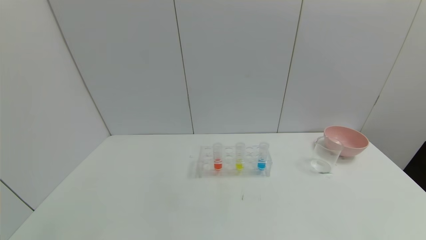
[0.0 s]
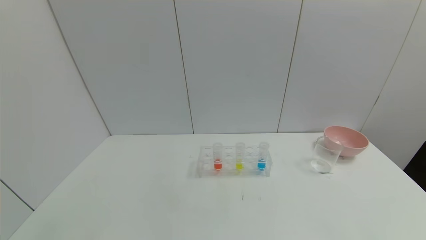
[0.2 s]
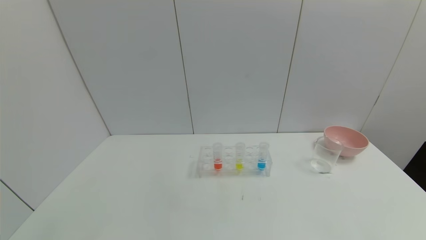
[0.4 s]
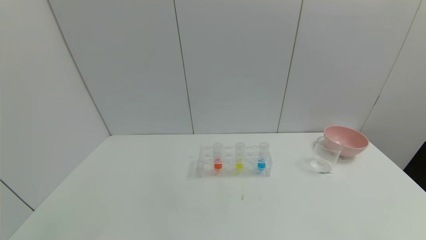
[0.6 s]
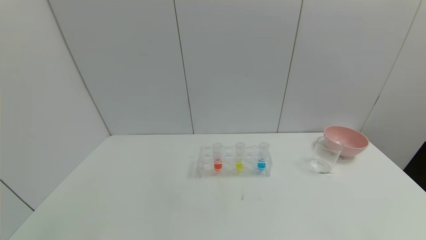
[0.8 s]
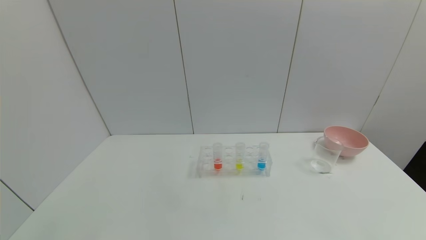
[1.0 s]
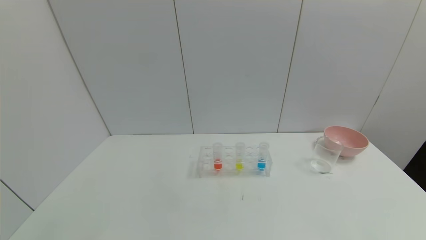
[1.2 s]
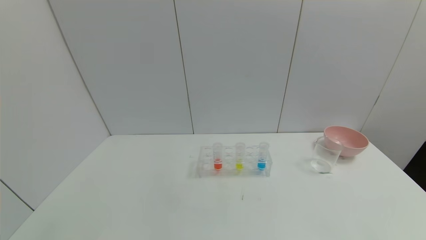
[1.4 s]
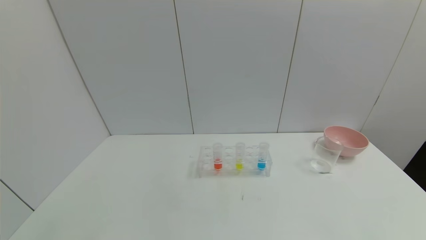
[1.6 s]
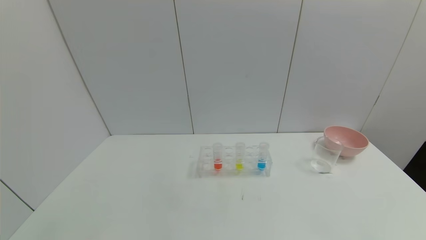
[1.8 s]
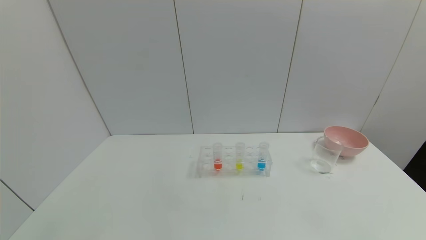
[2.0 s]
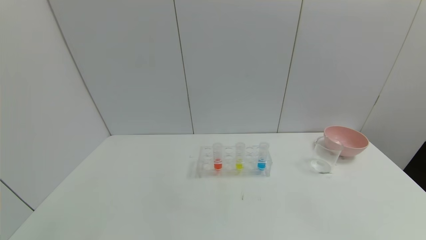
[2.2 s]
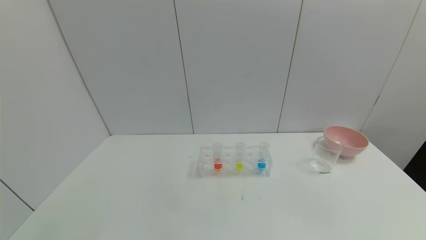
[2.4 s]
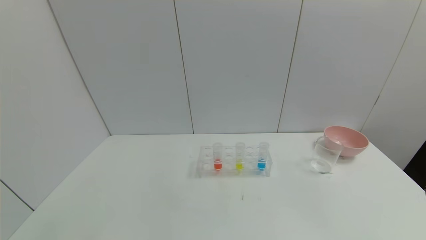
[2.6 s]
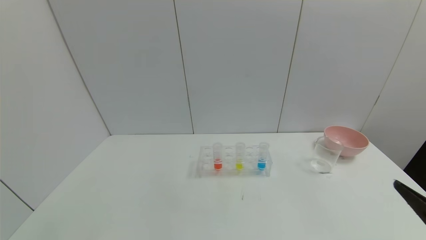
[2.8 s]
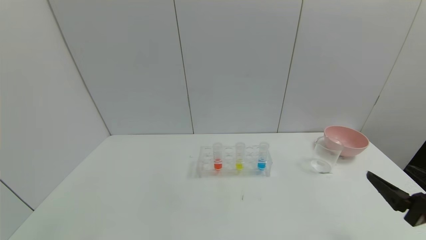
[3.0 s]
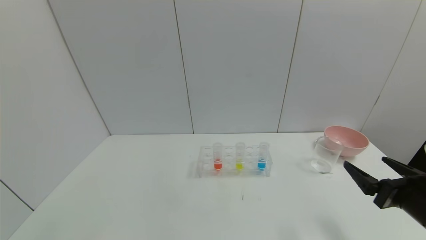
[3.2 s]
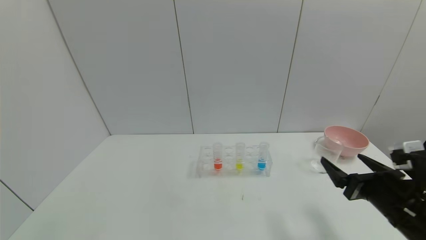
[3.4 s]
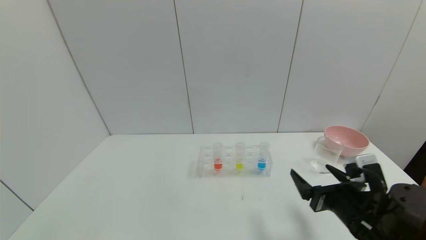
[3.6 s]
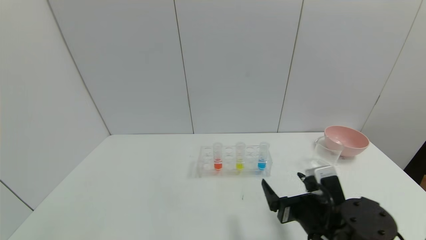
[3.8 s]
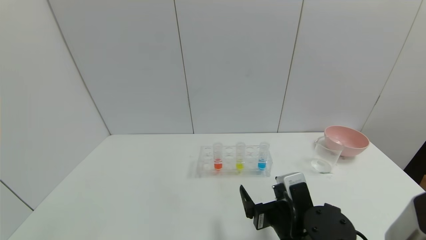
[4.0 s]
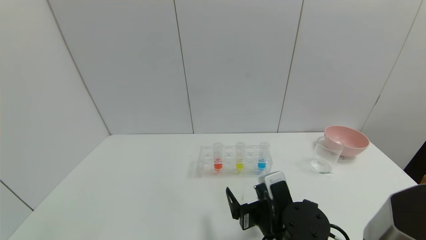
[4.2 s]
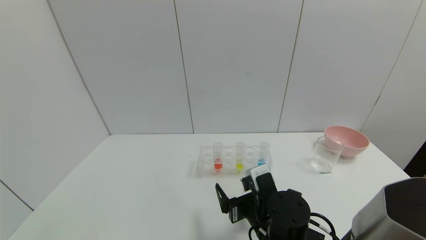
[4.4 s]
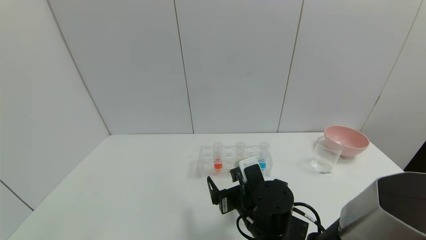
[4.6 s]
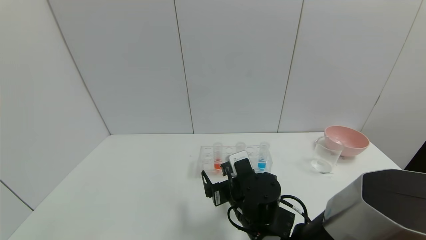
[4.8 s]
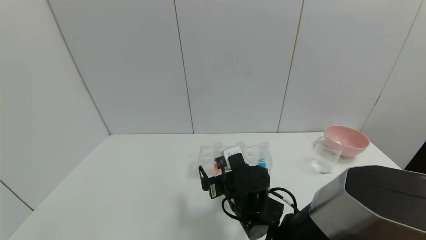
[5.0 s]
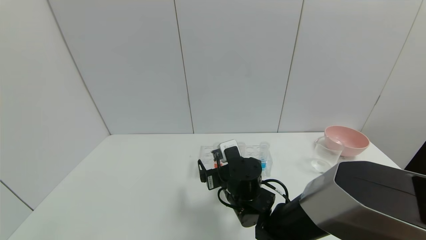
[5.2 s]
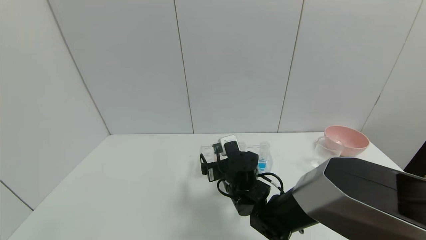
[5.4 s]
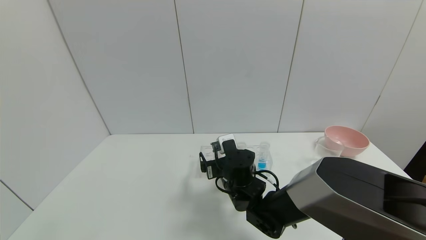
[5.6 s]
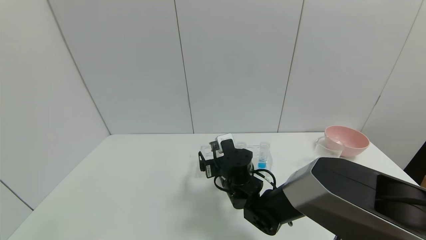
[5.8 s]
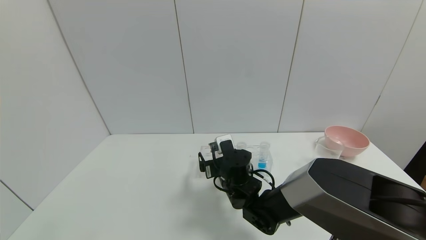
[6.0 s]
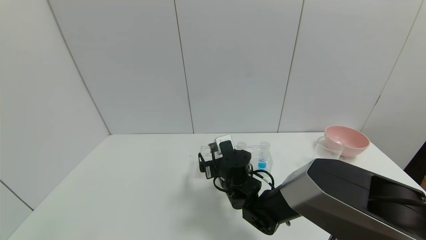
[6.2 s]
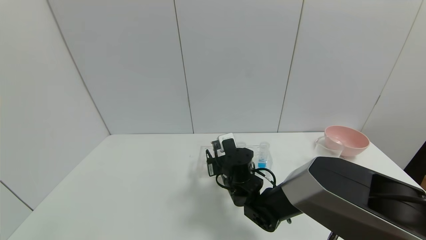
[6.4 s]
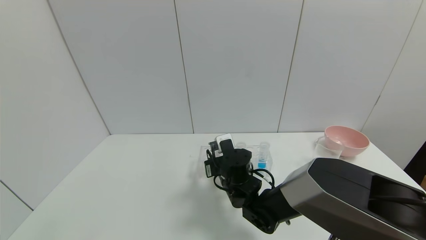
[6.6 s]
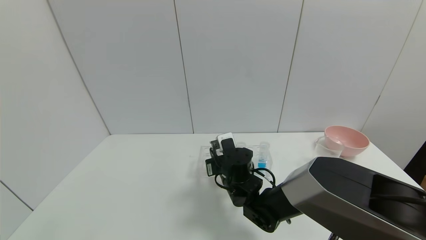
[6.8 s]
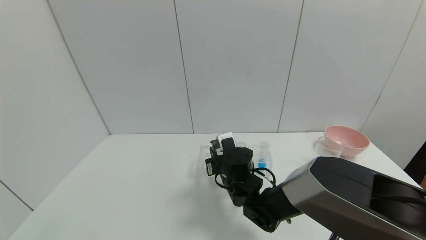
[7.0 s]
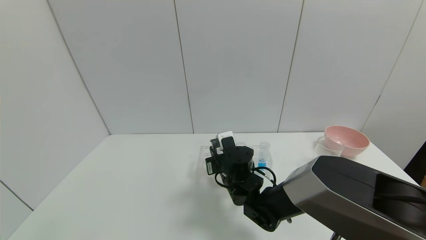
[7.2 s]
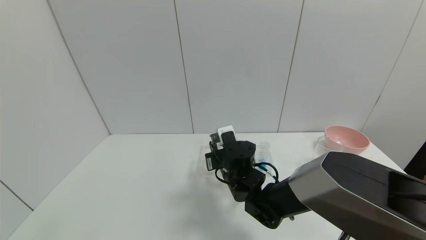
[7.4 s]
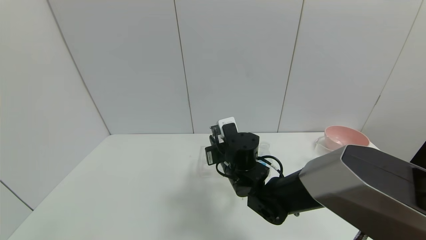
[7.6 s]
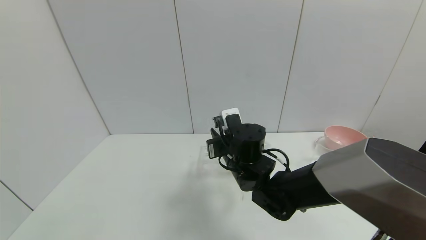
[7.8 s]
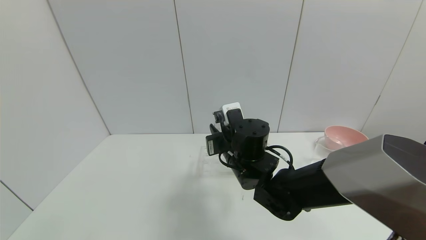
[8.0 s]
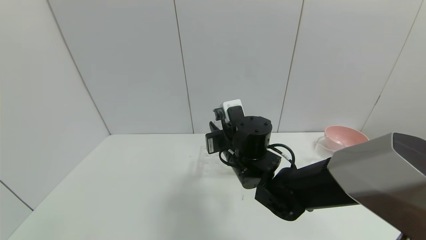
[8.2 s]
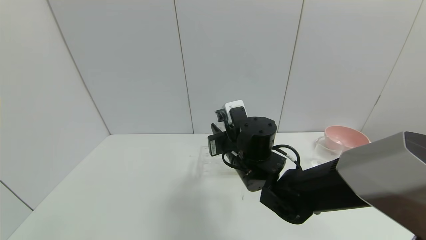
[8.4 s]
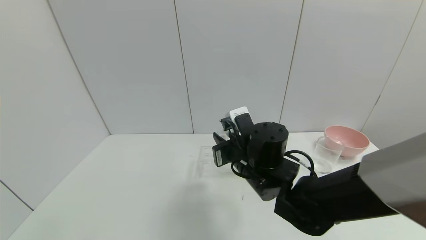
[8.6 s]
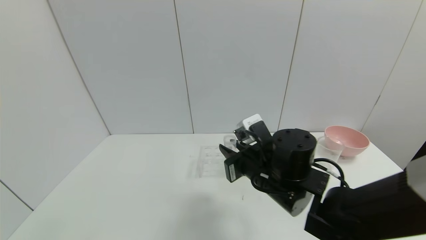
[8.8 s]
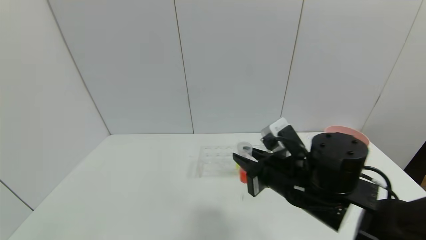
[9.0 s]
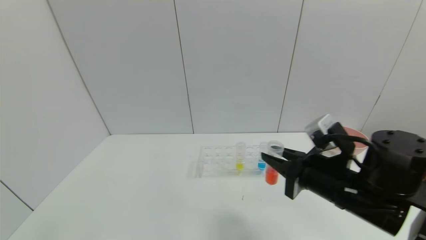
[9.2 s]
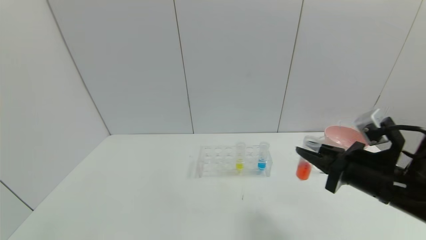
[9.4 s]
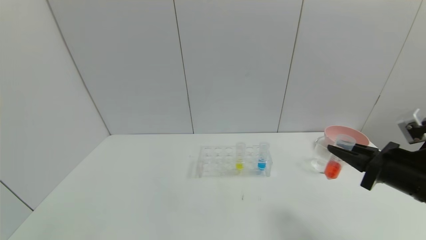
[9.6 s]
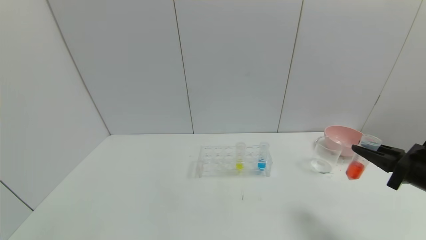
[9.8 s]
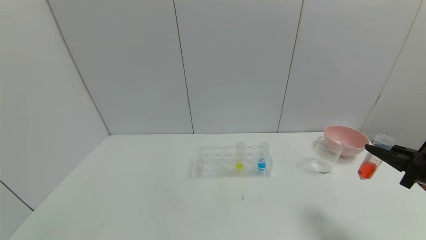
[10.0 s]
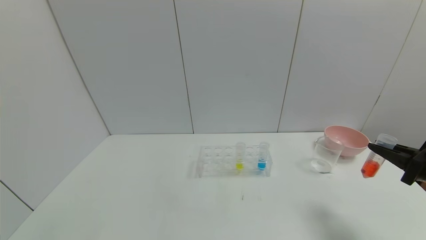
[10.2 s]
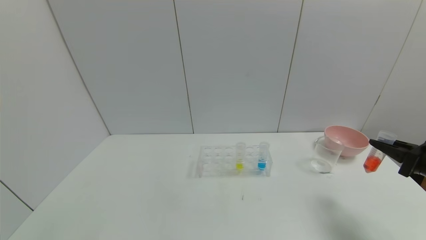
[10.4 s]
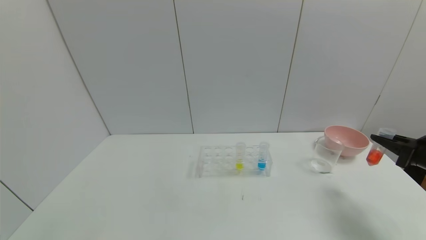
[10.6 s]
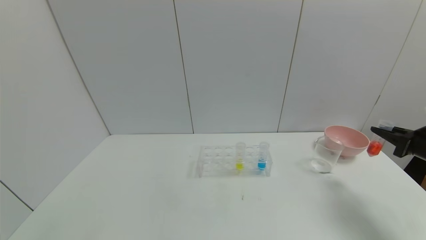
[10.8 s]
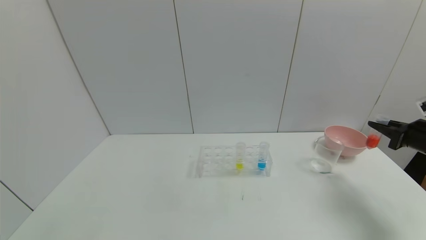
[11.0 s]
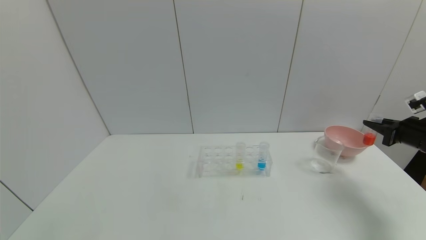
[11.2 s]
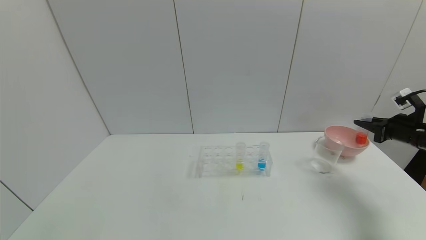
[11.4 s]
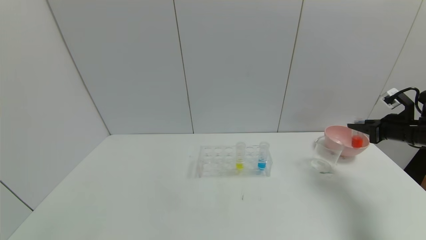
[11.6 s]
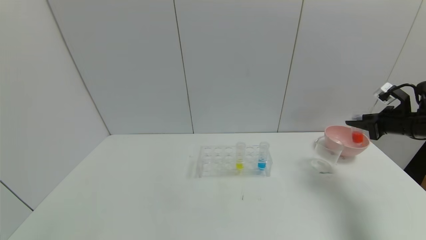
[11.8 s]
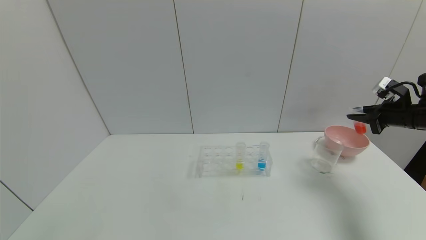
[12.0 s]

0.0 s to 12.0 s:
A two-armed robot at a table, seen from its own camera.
Task of the whole recording: pick up the test tube with red pigment and the test tube with blue pigment by grippers and pour them into the container.
Step, 0.0 to 9.4 s: Pick up the test tube containing the red reagent with right gripper.
0.0 to 1.6 s: Both grippers stay put.
1.6 to 3.0 s: The right gripper moves forward and upward, roughly 20 cm.
3.0 to 4.4 s: The right gripper travels to the left by some 25 cm.
4.4 to 6.0 s: The right gripper moves forward and to the left, approximately 15 cm.
6.0 to 7.6 s: The right gripper is displaced upward by some 5 cm, and closes.
7.6 to 9.0 s: The right gripper travels to the right, backward and upward by some 15 cm.
9.0 to 10.4 s: The right gripper heads to the right, covering some 30 cm.
10.4 to 12.0 s: The right gripper heads forward, covering some 15 cm.

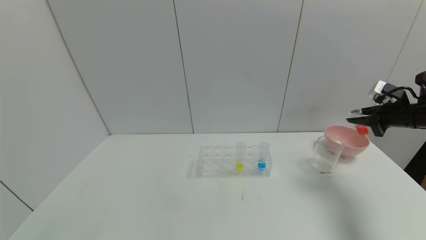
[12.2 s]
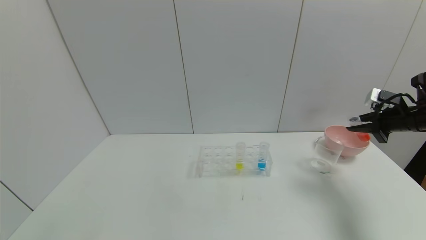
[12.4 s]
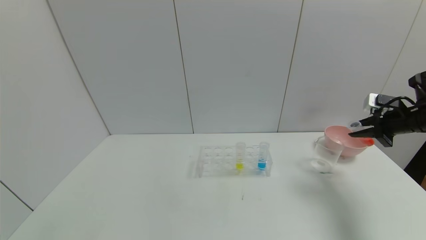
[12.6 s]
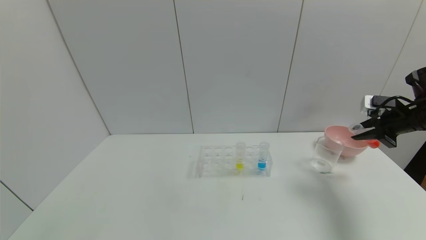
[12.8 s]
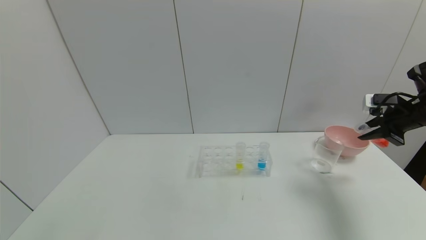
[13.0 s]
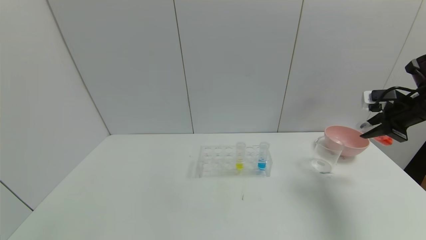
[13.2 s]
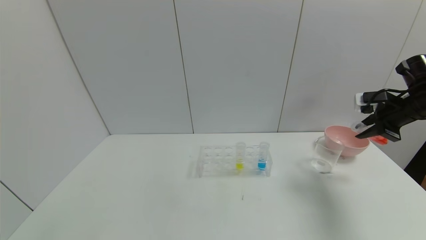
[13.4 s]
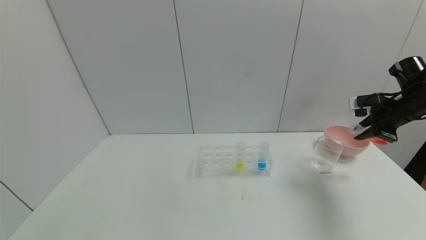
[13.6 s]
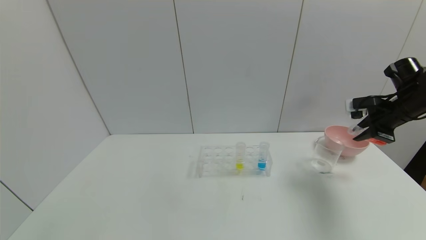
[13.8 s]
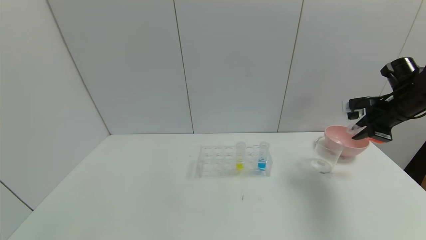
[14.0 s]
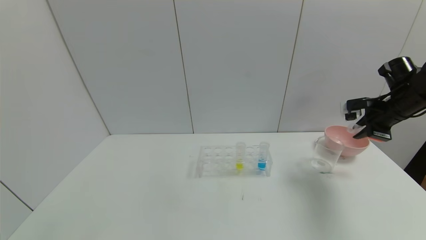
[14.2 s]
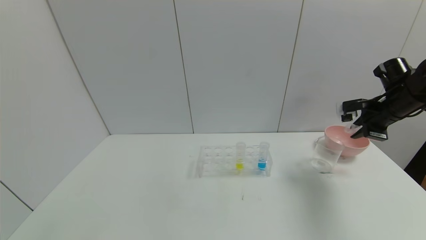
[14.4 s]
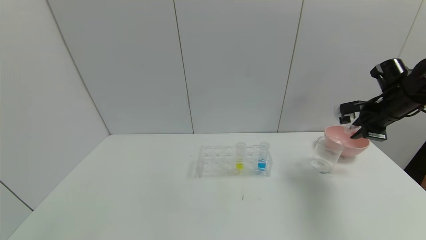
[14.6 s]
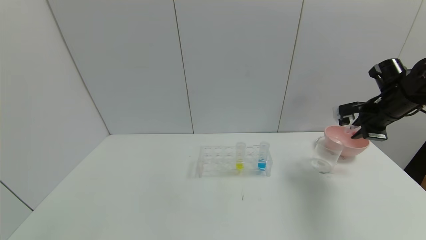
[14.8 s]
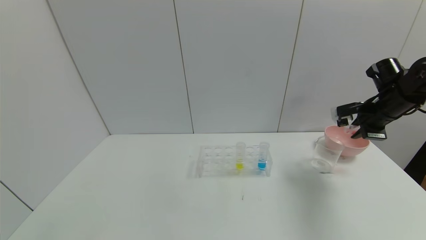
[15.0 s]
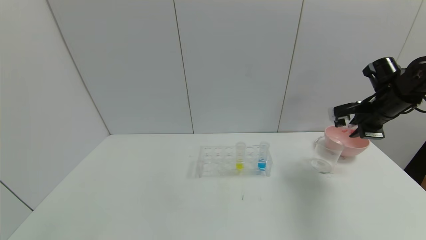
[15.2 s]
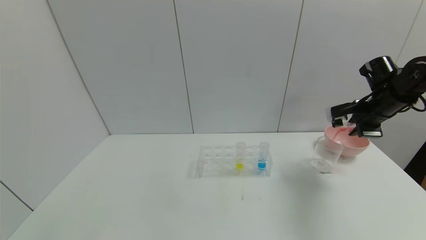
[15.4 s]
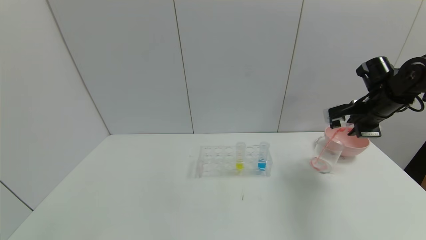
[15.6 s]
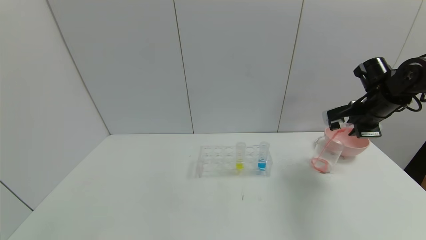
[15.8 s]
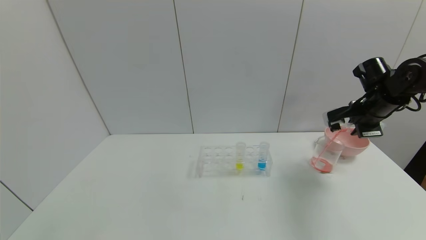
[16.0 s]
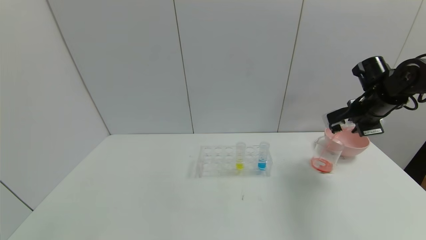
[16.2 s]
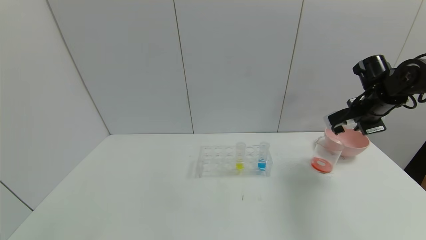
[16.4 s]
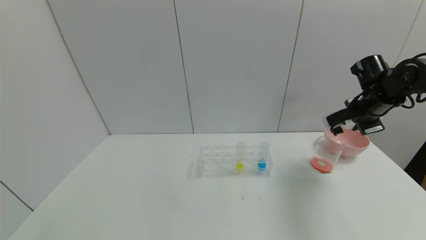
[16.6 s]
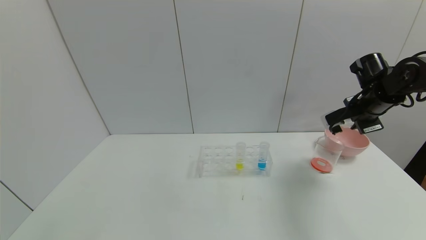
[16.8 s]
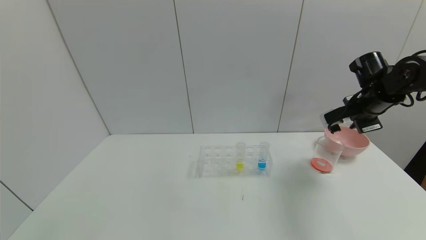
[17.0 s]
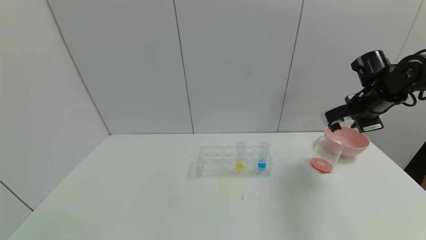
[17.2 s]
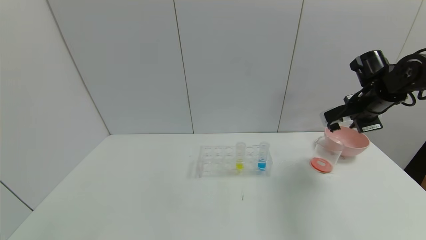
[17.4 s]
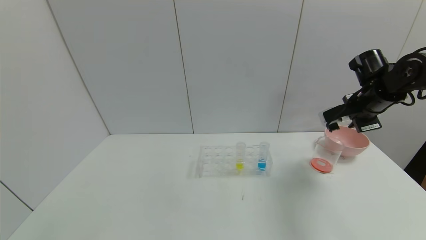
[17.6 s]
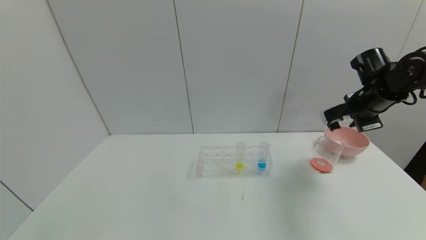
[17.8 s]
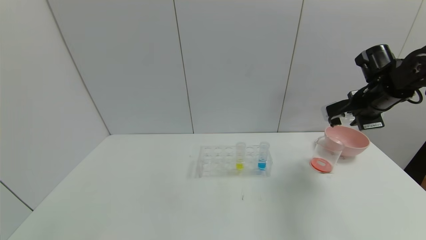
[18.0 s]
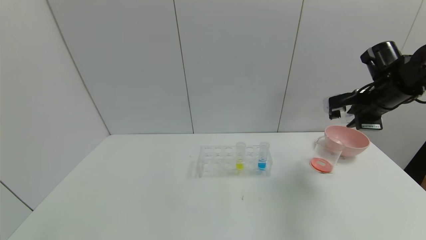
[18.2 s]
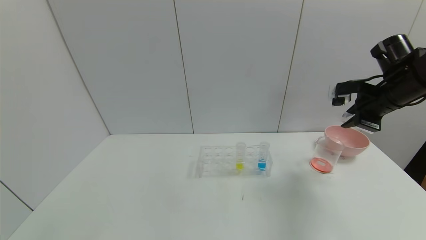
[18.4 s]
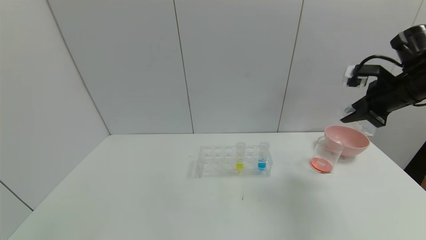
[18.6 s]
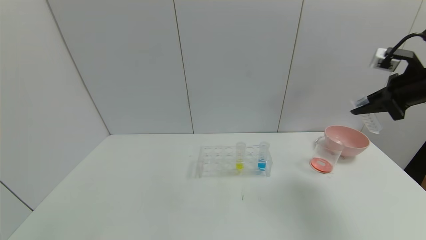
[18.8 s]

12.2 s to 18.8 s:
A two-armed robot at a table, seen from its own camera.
Task of the whole recording: pick up the test tube with red pigment and the test tube with blue pigment by grippers and pour them into the container.
Step, 12.2 to 18.8 s: Pour the red reagent into the graduated cylinder with right gripper.
12.2 to 13.8 s: The right gripper shifts by approximately 5 cm.
13.8 to 15.4 s: The grippers stay close to where they were, moving slightly.
15.4 to 17.2 s: There are only small adjustments of the grippers.
17.2 to 18.8 s: The right gripper is displaced backward and upward by roughly 10 cm.
